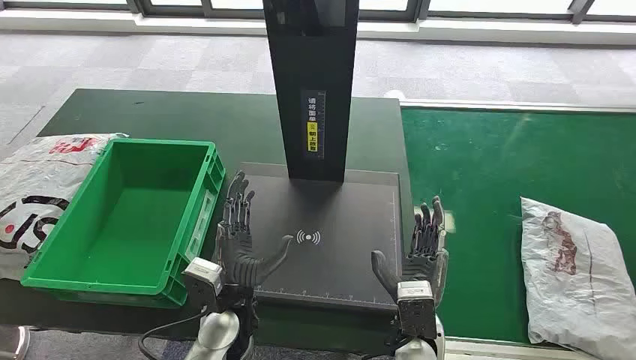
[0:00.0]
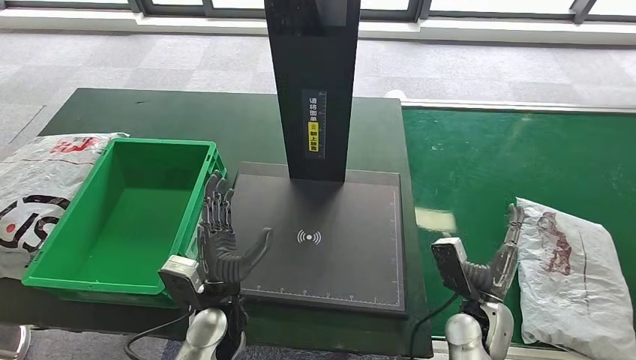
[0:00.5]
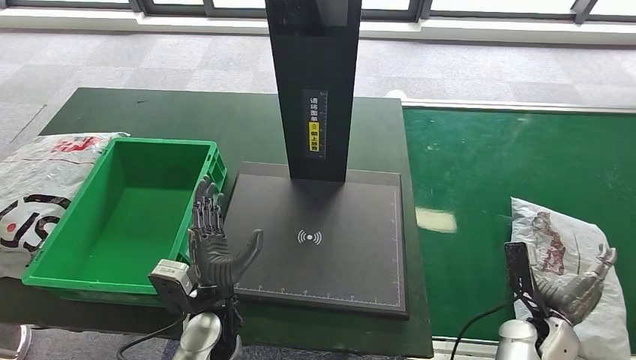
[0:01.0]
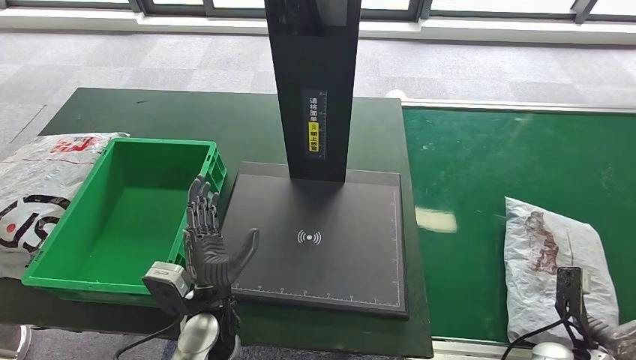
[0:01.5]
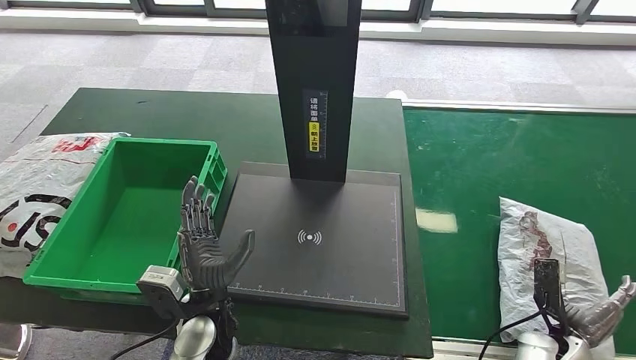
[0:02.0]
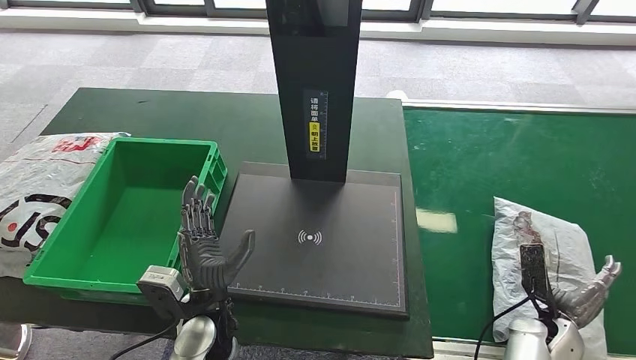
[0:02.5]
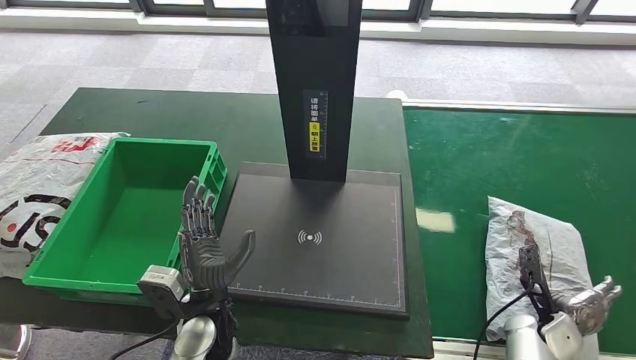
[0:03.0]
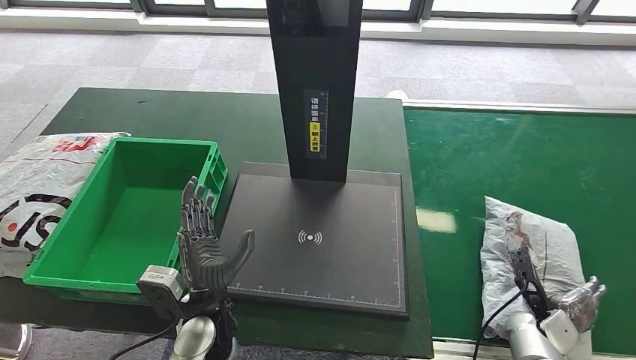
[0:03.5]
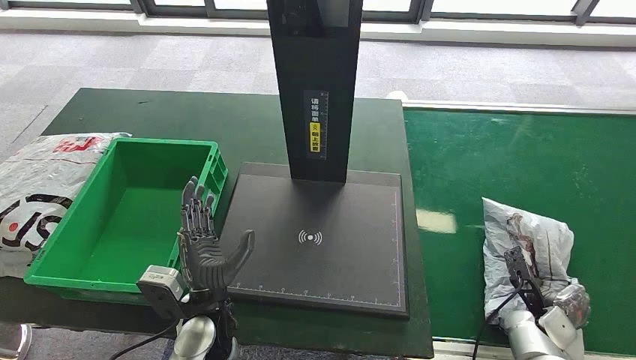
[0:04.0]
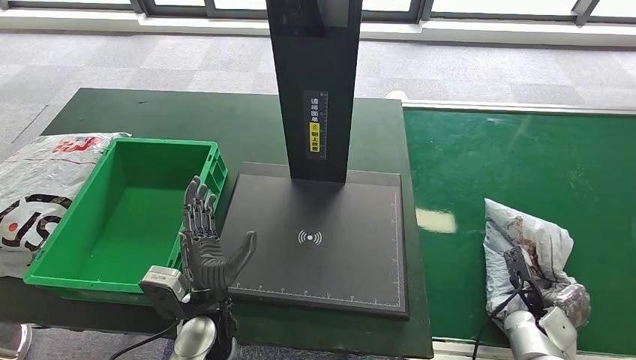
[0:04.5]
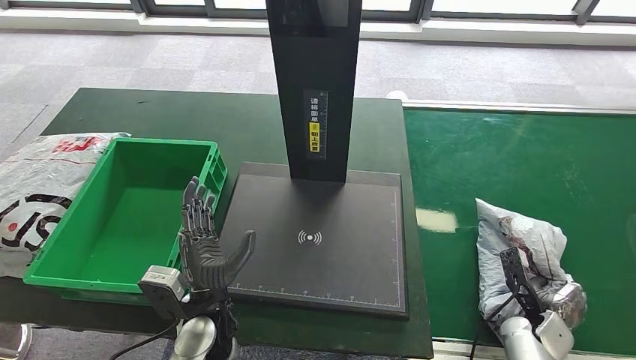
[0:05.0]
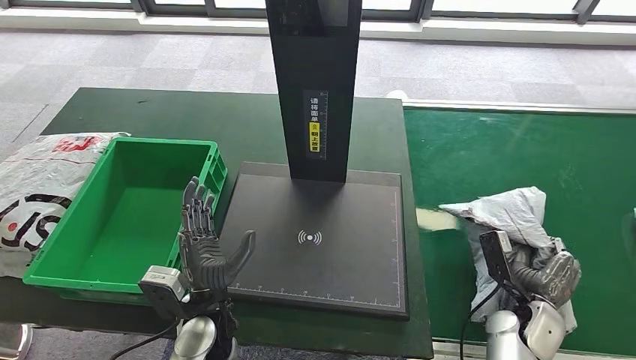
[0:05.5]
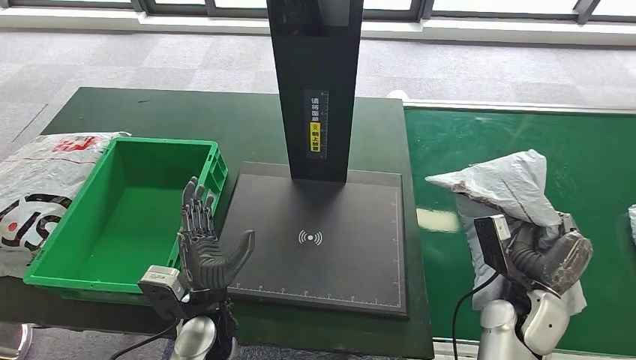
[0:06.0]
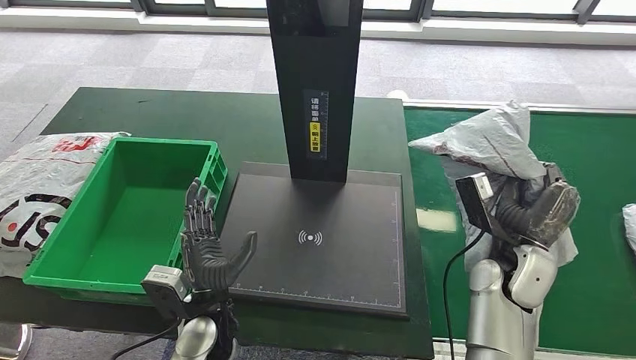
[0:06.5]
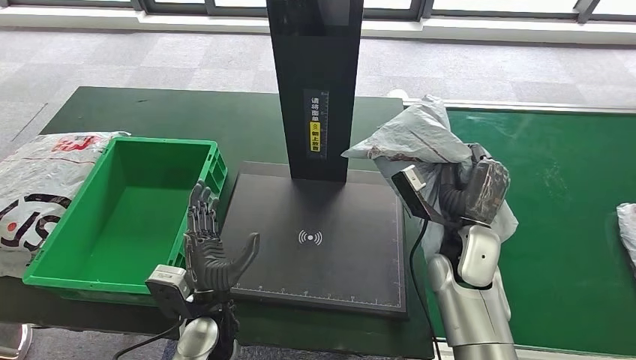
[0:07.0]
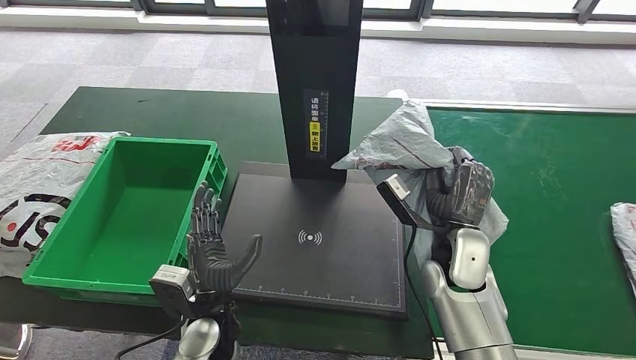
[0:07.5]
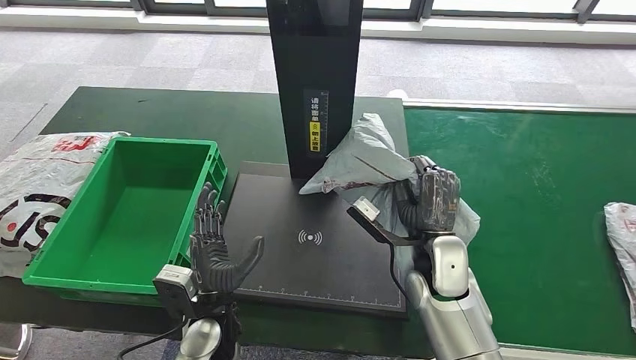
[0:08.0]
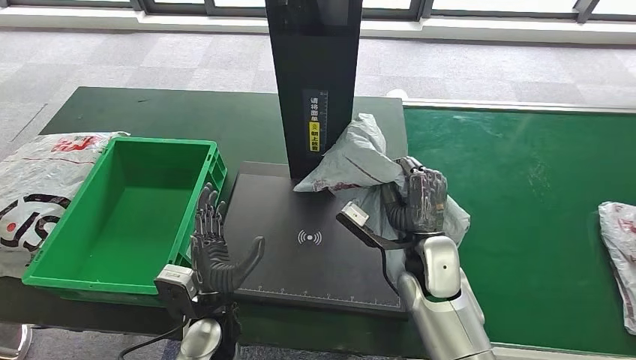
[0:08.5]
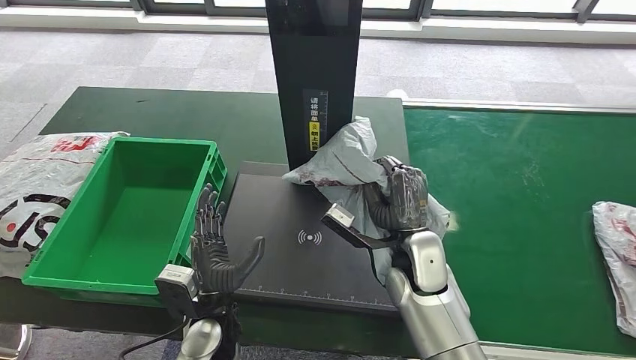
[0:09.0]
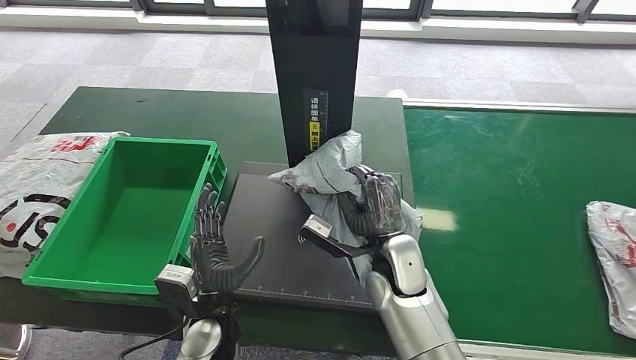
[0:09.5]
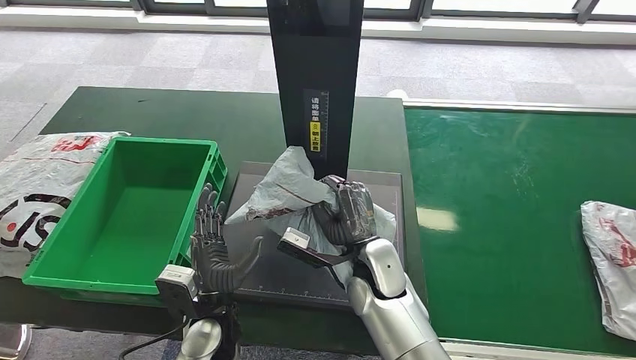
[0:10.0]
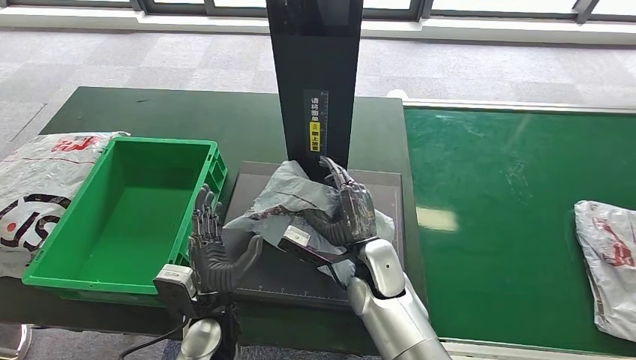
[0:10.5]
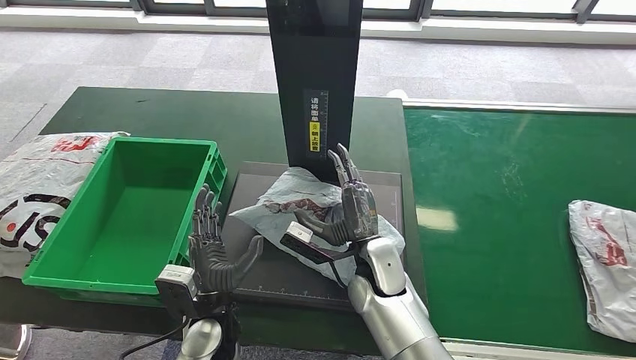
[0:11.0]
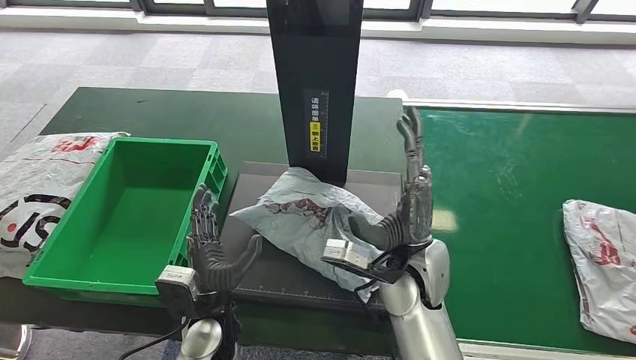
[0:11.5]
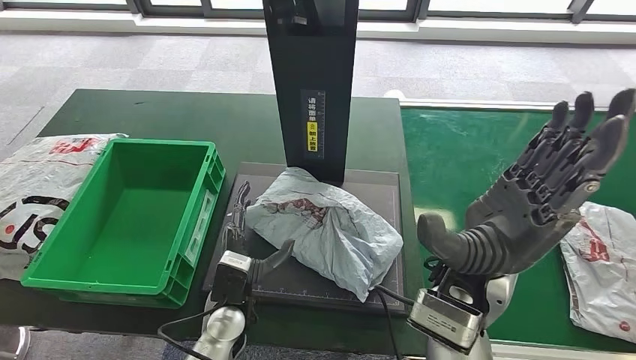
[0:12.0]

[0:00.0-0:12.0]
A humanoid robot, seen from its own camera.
Step, 0:00.0 to 0:05.5: Take the parcel off the conveyor belt.
Step, 0:06.5 to 0:11.5: Place the parcel onto the inbound machine.
0:02.0 to 0:04.0: The right hand goes approximately 5 cm forward.
0:04.0 to 0:06.0: The right hand shifts roughly 15 cm upward and to the left.
0:06.0 to 0:08.0: The right hand heads to the left and forward, covering approximately 15 cm.
0:08.0 to 0:10.0: The right hand travels to the left by some 10 cm.

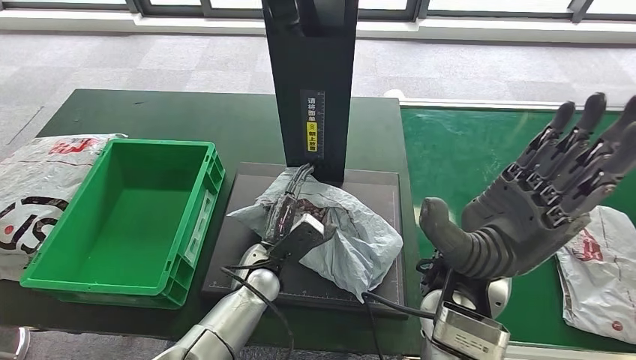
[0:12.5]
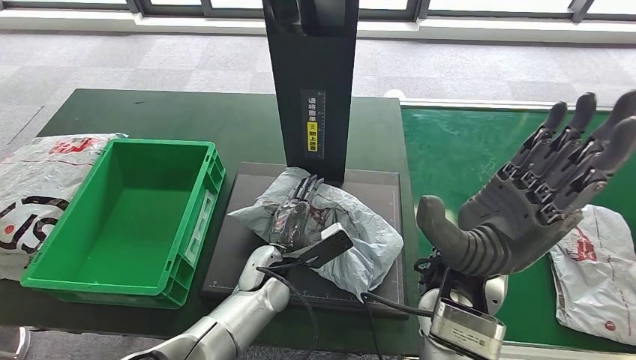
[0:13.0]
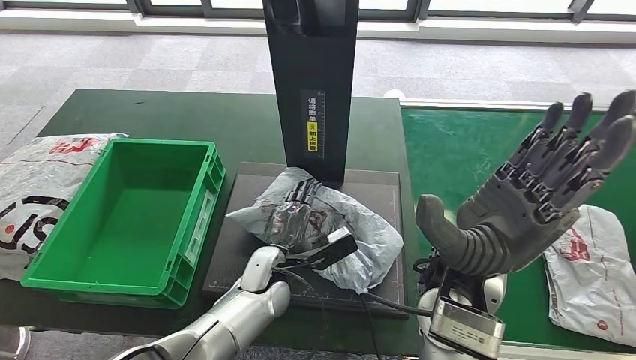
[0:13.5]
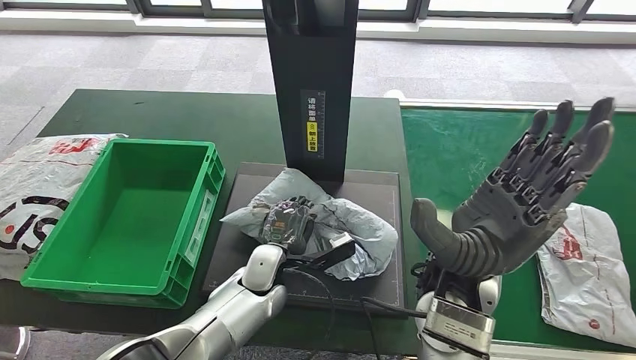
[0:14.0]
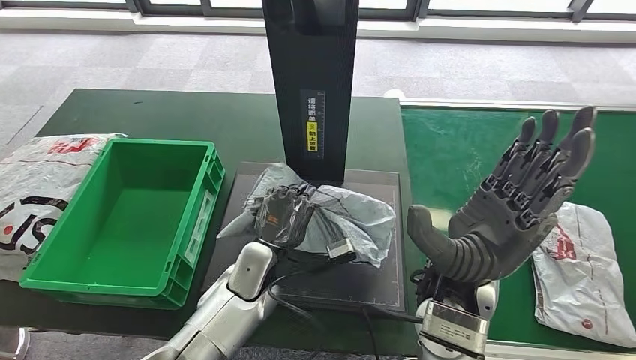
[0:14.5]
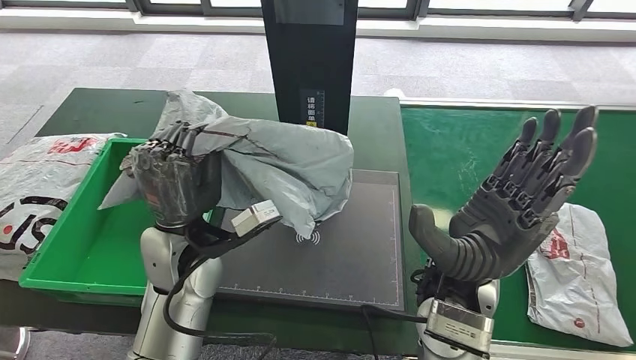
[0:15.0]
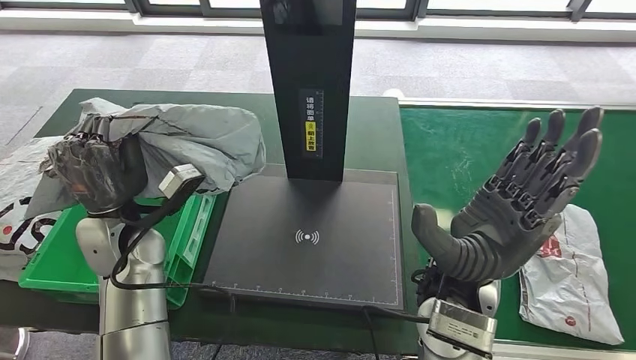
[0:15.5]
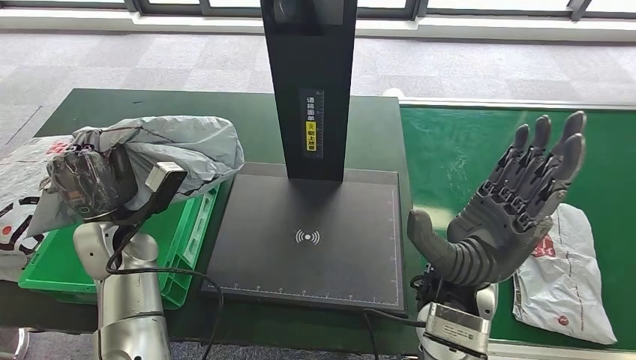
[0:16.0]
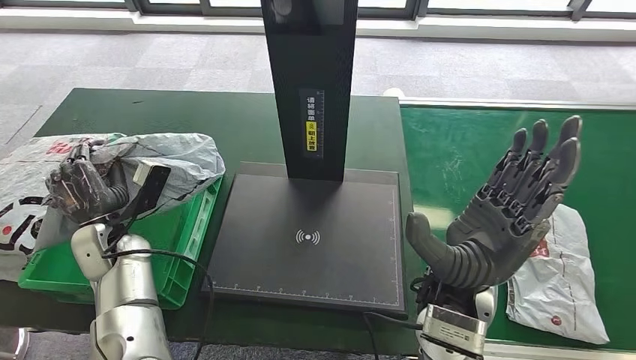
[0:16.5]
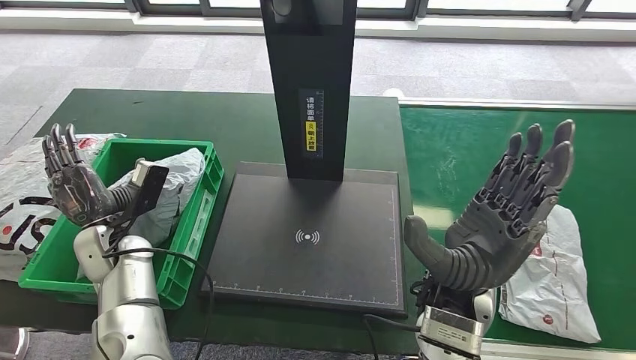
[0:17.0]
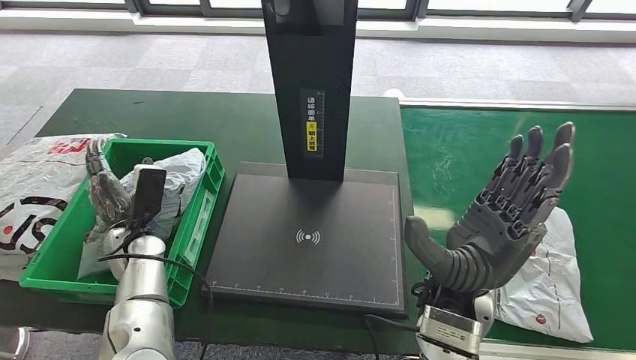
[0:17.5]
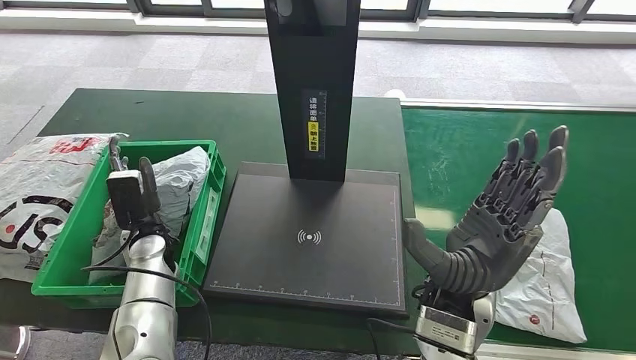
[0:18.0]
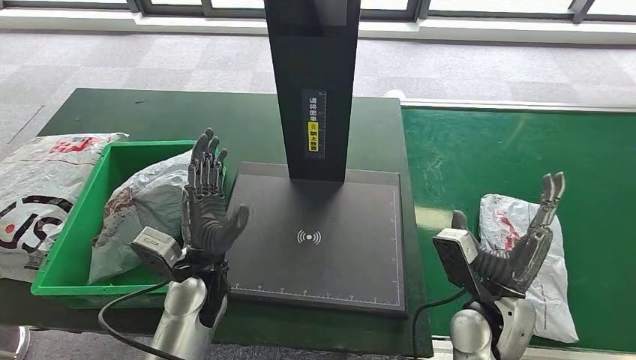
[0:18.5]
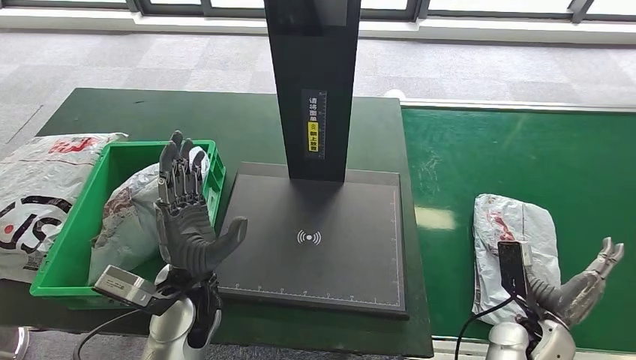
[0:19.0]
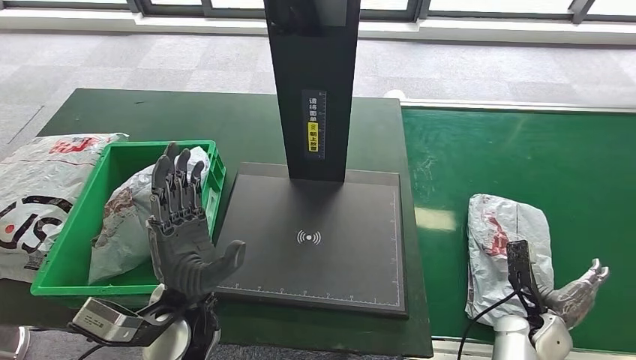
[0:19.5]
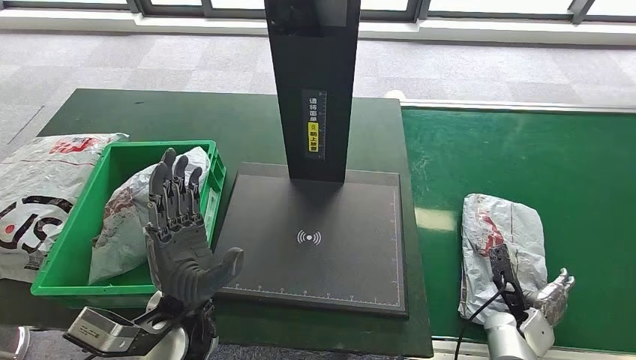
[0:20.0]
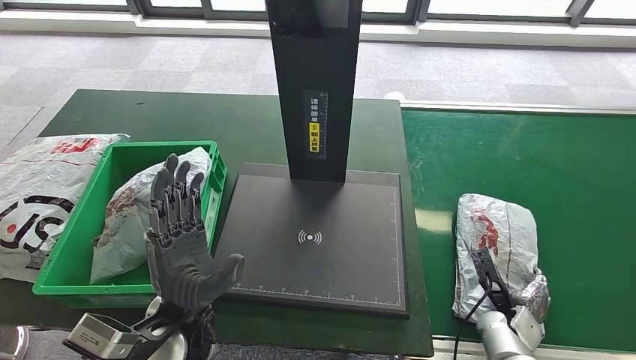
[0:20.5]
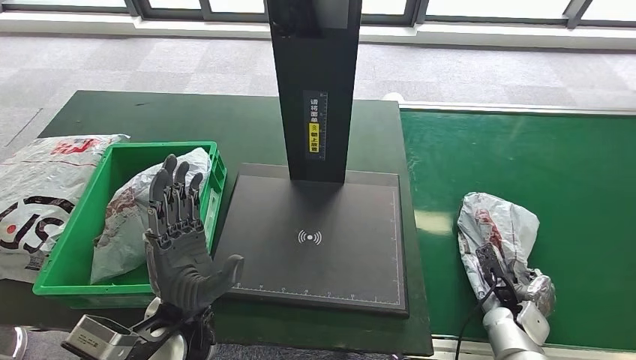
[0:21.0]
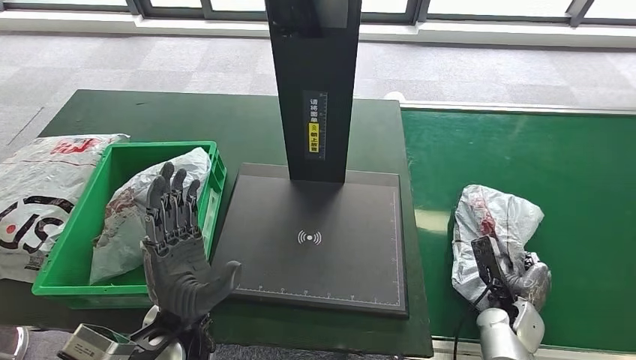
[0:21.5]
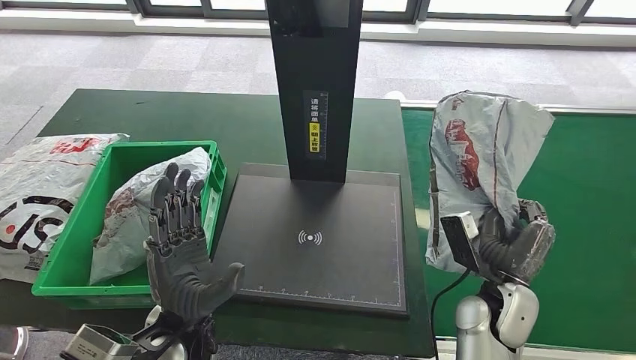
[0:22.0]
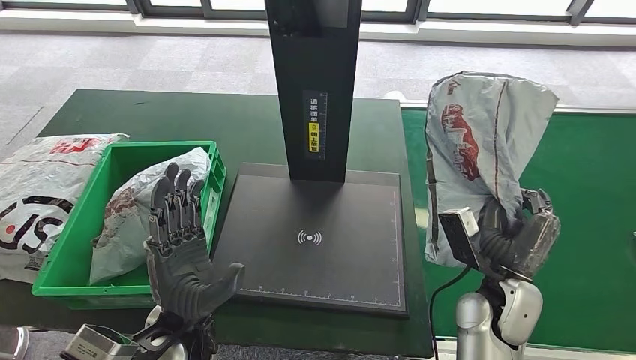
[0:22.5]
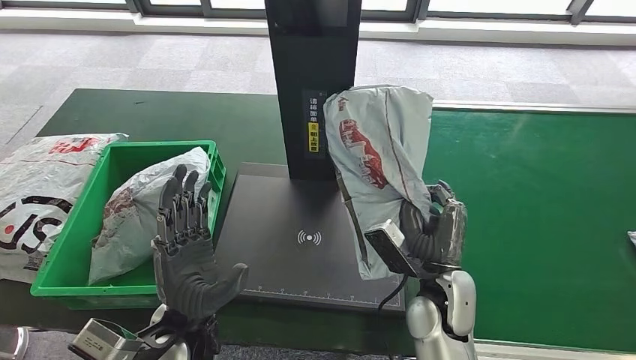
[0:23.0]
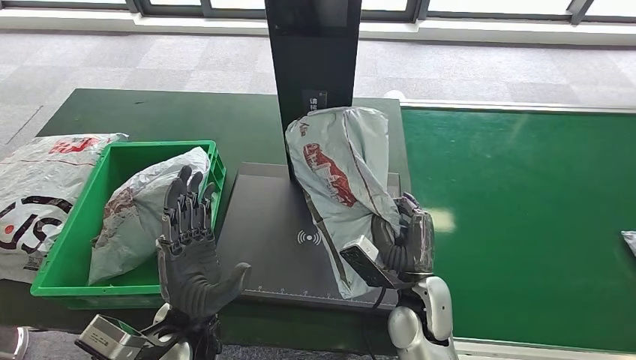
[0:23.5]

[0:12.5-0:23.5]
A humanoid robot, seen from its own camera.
Step, 0:13.0 to 0:14.5: Pick up the parcel from the inbound machine.
Step, 0:15.0 to 0:17.0: Put the parcel inside the courier box.
Step, 0:18.0 to 0:21.0: Pick up the parcel from the conveyor belt.
0:18.0 to 0:20.0: The left hand moves backward, to the right and upward, roughly 15 cm. The right hand goes some 35 cm downward and to the right.
0:20.0 to 0:21.5: The hands stay close to where they were, moving slightly.
